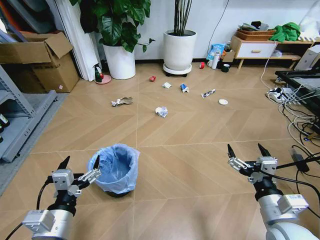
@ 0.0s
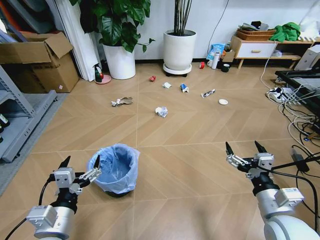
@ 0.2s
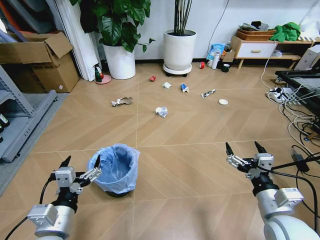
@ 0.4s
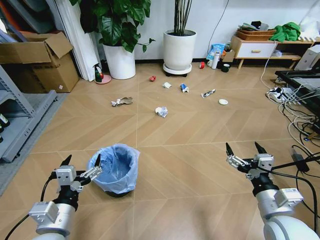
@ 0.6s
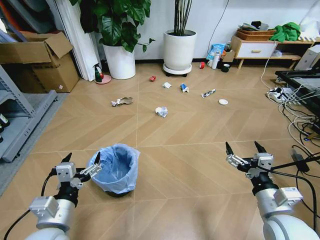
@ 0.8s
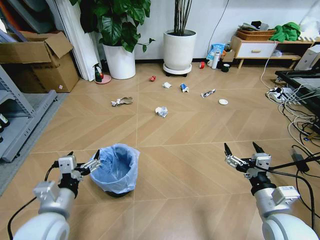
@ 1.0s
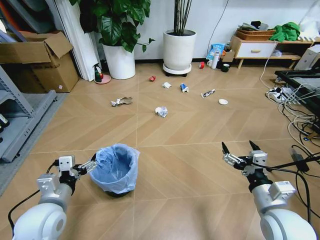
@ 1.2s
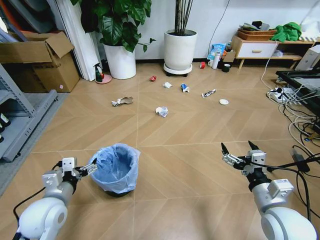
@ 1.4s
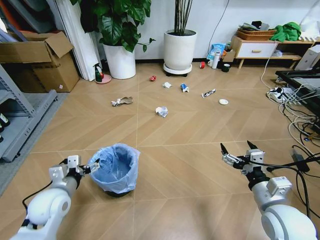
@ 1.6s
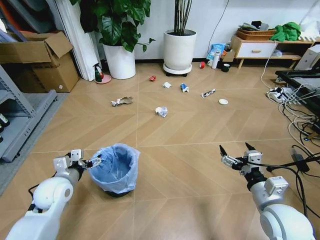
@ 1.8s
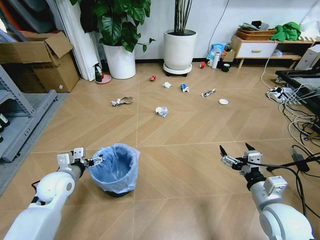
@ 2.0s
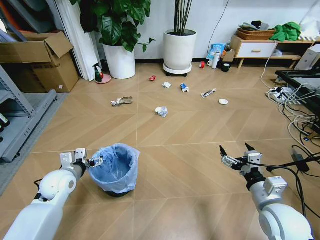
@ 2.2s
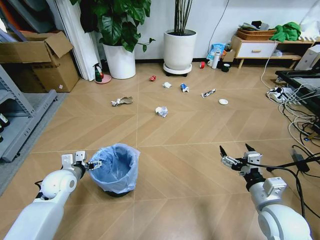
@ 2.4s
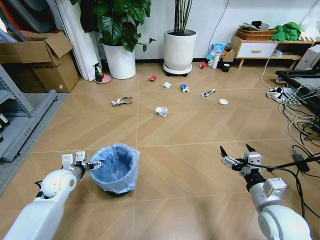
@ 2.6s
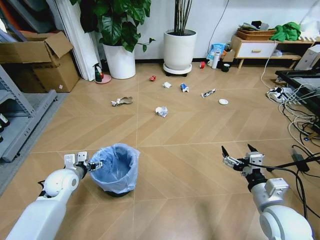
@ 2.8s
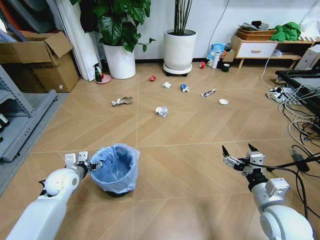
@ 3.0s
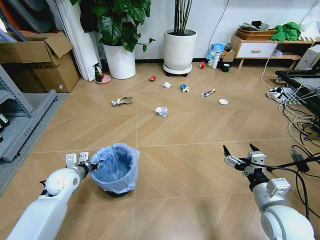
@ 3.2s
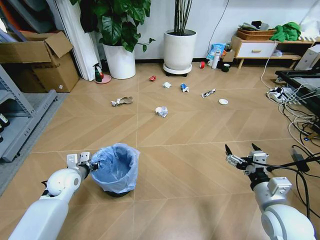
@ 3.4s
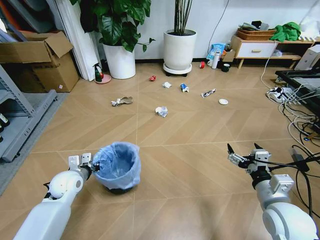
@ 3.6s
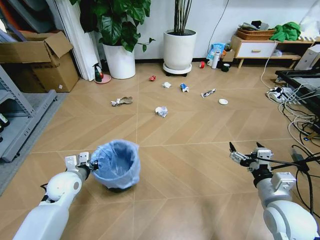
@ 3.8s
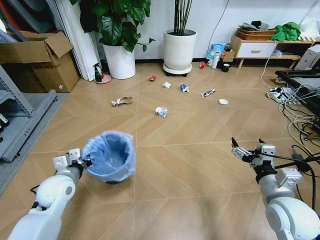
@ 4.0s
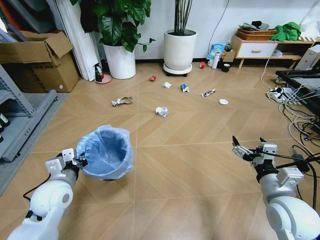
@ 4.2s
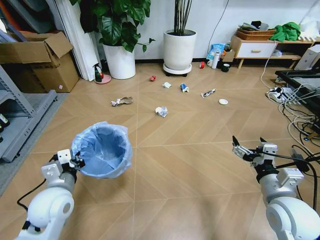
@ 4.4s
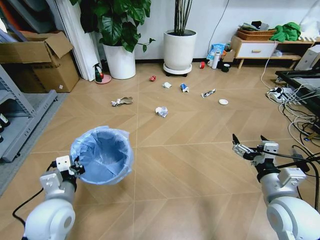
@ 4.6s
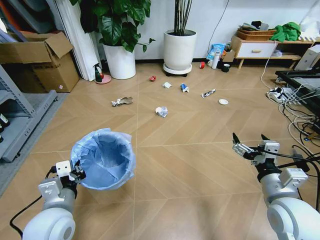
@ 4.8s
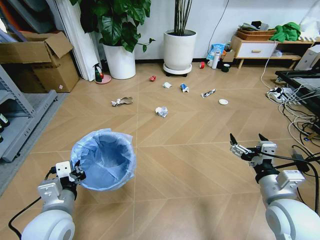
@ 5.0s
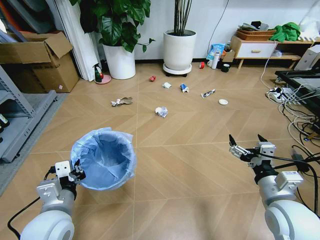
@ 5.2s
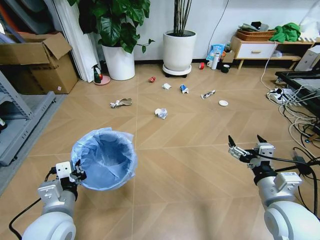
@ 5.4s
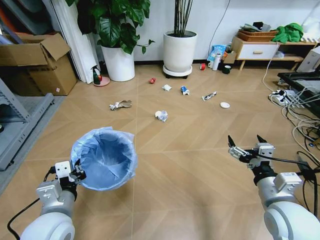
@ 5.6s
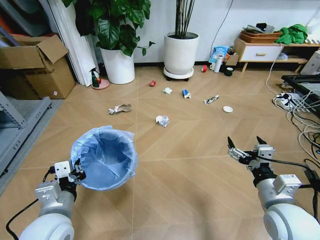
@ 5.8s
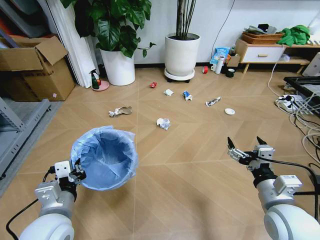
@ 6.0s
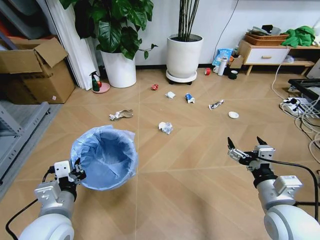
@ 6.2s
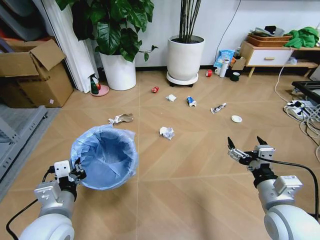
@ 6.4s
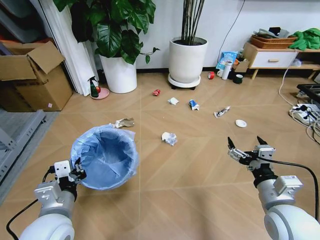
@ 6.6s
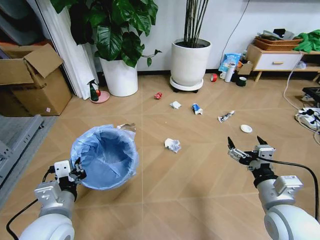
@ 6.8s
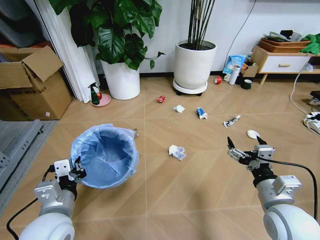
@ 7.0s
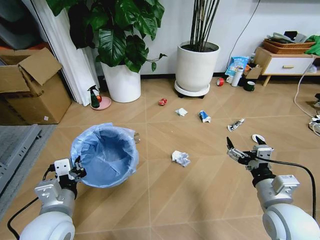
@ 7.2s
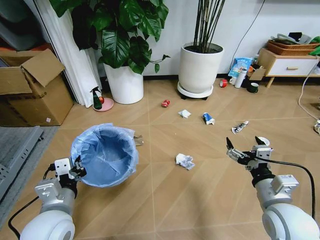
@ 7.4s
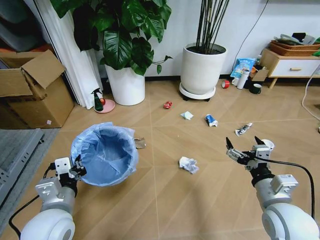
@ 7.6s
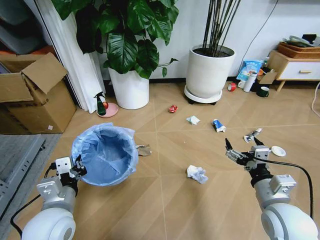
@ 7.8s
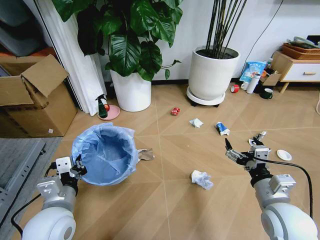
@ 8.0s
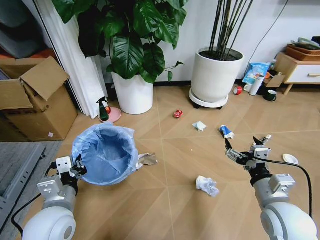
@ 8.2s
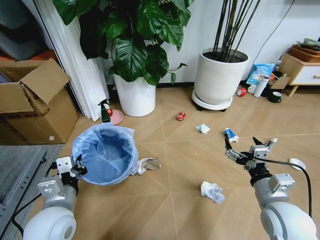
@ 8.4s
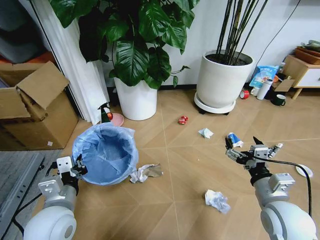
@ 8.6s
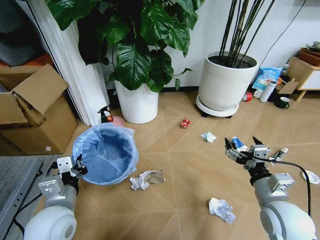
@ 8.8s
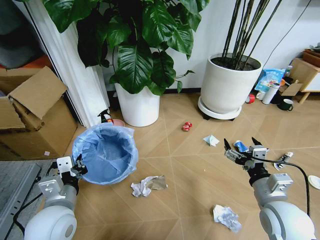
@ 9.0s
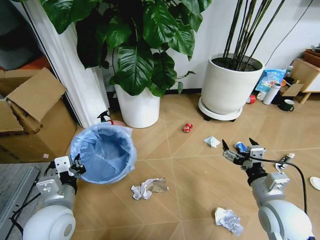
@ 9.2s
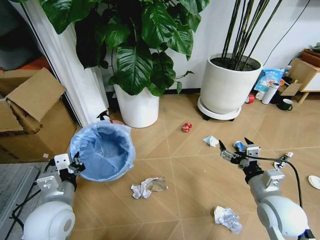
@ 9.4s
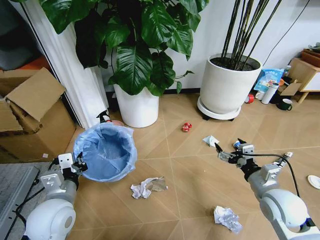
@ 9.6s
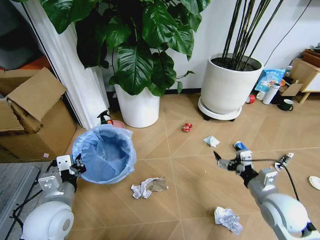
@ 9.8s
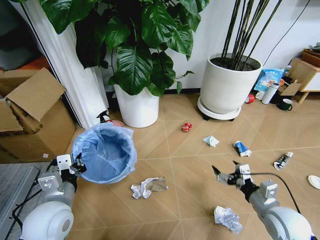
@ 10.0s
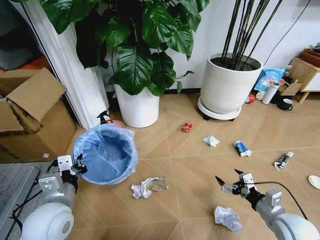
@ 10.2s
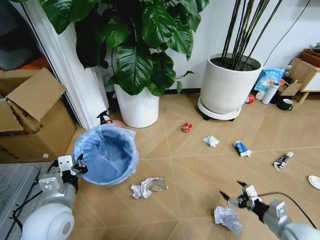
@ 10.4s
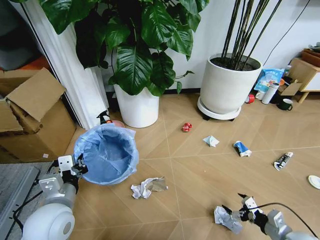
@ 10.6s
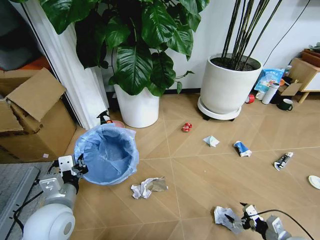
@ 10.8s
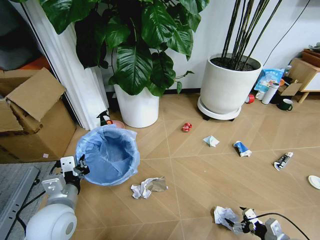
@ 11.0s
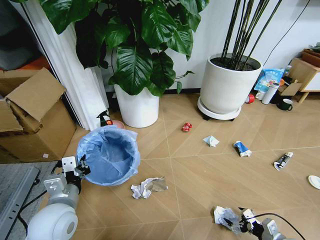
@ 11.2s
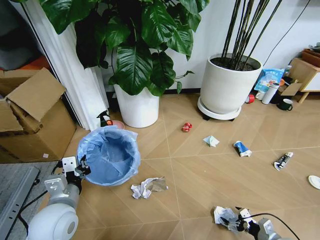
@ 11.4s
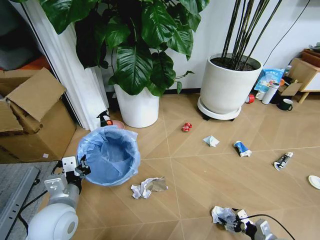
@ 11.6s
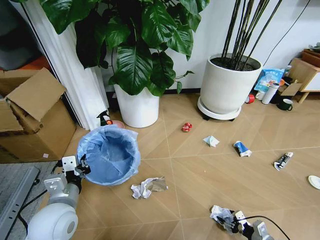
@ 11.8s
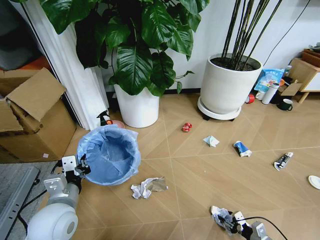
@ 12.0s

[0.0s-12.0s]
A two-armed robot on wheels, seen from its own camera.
Task of the whole recording: Pick up the trash bin and place the garbage on the floor into it.
1.6s to 3.0s: The left gripper heads forward, covering approximately 10 cm.
3.0s to 4.4s: The left gripper moves backward, upward and to the right, about 15 cm, and closes.
4.4s to 6.0s: The left gripper goes some 10 cm backward.
9.0s to 10.4s: The right gripper heads downward and to the right, covering roughly 15 cm.
10.4s to 12.0s: The right gripper travels downward by roughly 15 cm, and closes.

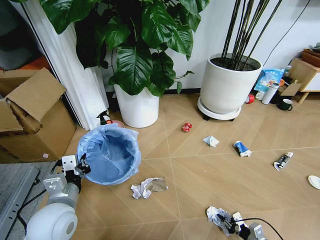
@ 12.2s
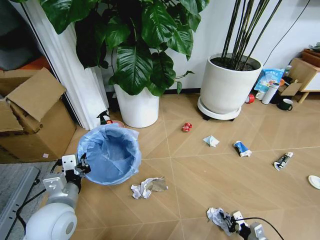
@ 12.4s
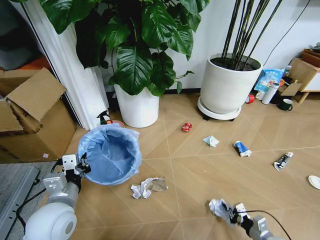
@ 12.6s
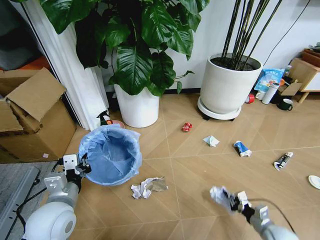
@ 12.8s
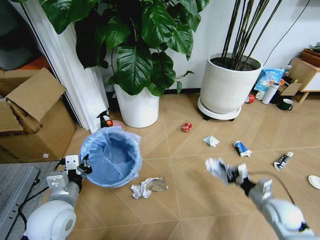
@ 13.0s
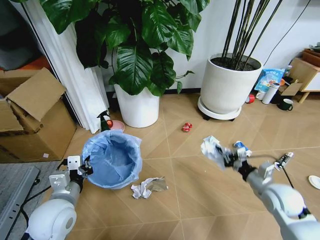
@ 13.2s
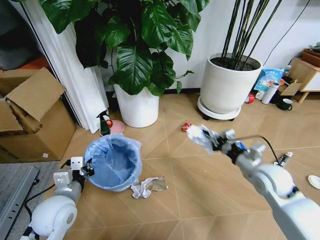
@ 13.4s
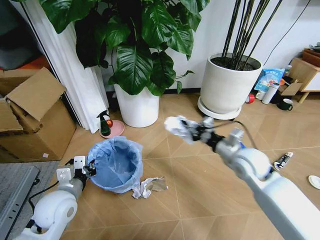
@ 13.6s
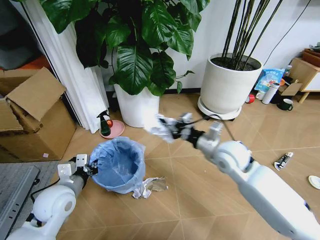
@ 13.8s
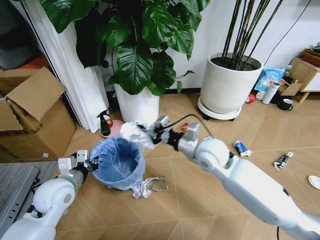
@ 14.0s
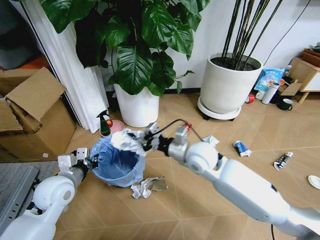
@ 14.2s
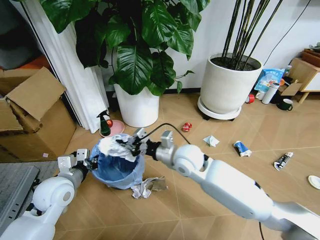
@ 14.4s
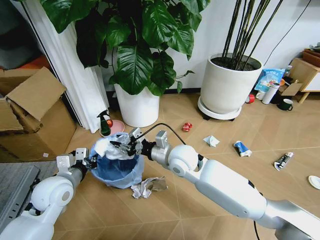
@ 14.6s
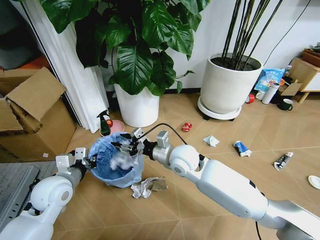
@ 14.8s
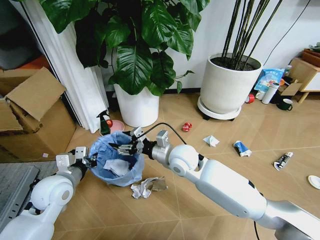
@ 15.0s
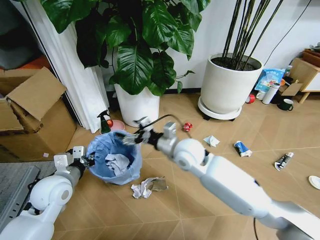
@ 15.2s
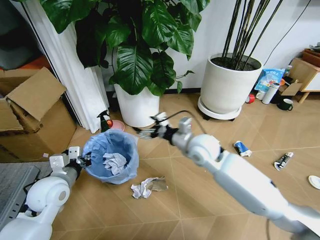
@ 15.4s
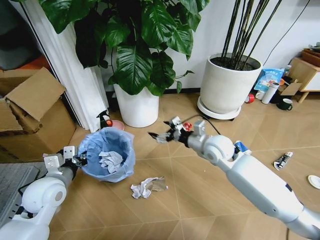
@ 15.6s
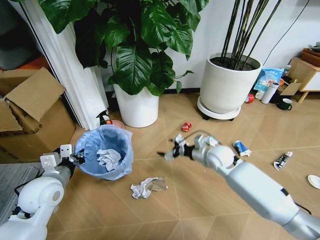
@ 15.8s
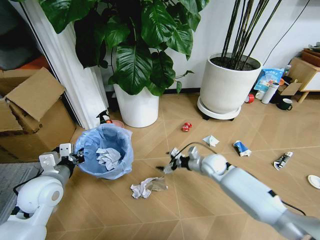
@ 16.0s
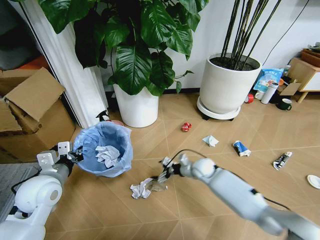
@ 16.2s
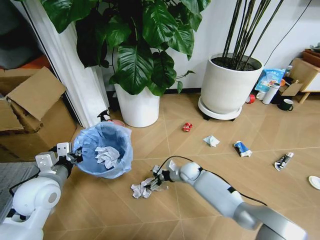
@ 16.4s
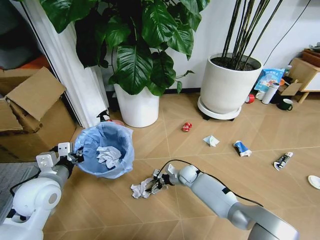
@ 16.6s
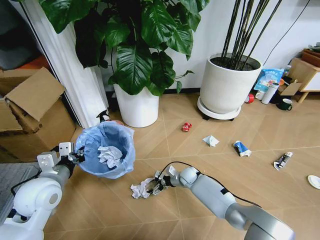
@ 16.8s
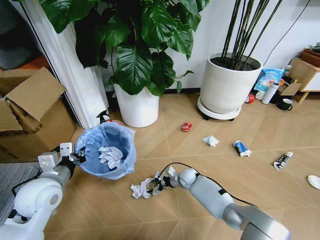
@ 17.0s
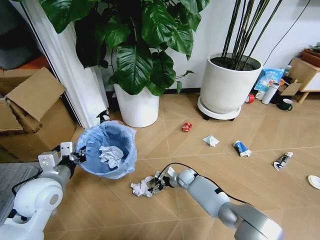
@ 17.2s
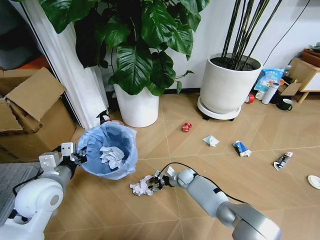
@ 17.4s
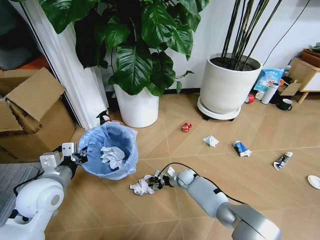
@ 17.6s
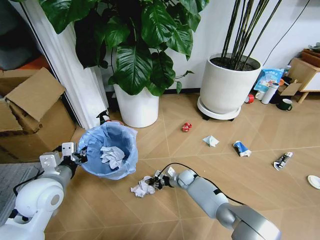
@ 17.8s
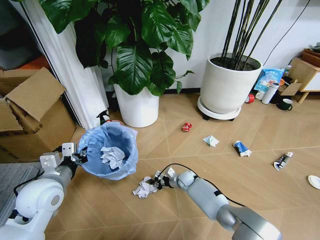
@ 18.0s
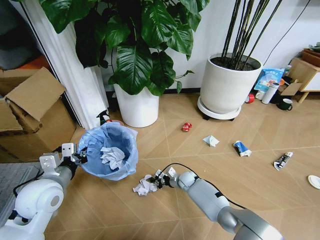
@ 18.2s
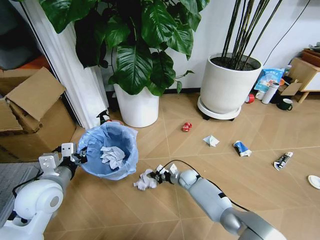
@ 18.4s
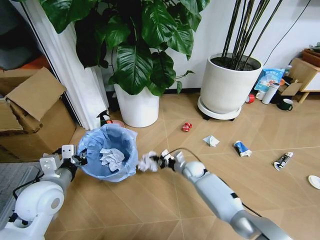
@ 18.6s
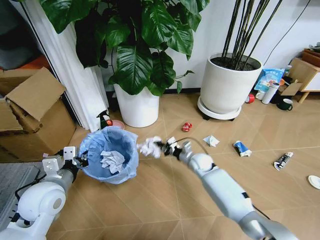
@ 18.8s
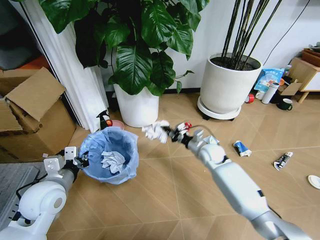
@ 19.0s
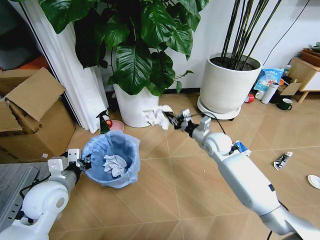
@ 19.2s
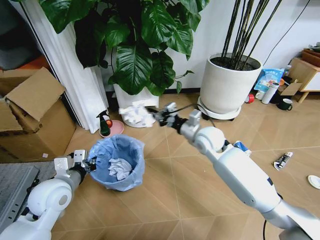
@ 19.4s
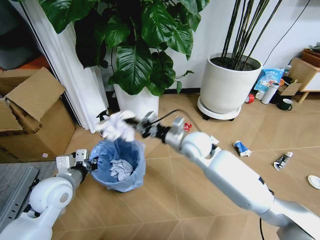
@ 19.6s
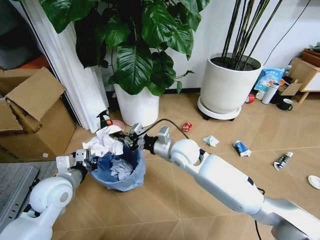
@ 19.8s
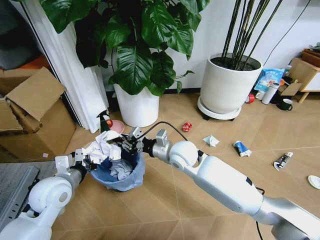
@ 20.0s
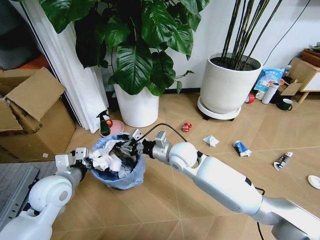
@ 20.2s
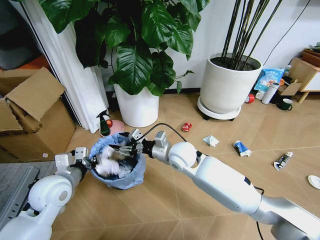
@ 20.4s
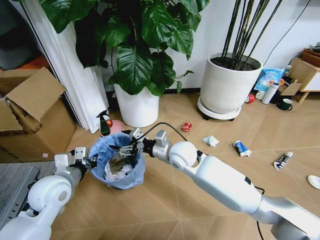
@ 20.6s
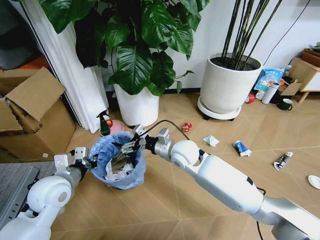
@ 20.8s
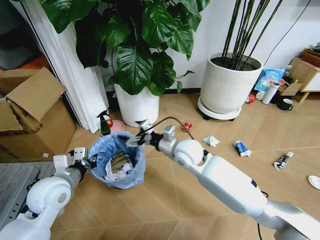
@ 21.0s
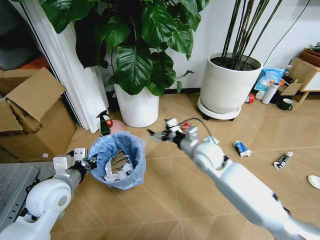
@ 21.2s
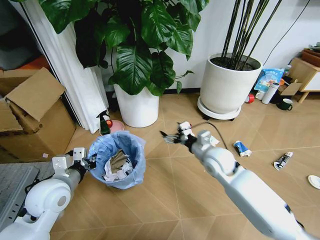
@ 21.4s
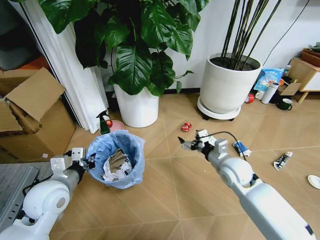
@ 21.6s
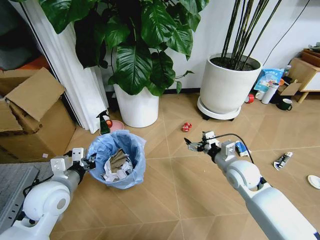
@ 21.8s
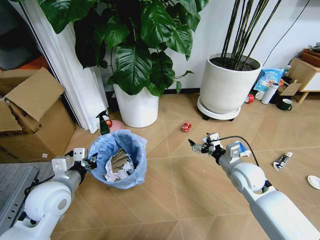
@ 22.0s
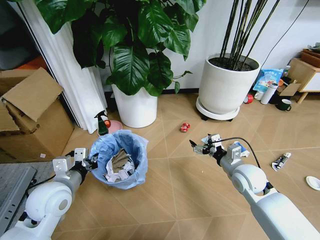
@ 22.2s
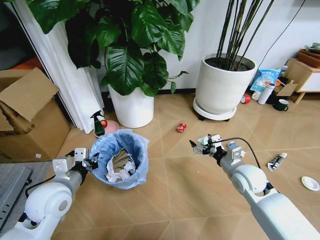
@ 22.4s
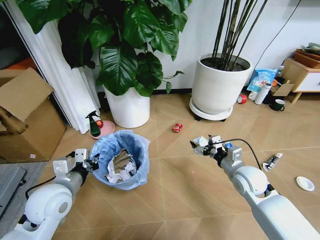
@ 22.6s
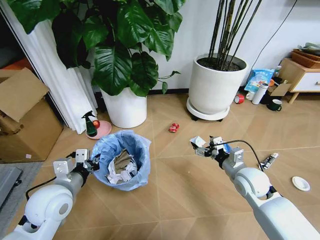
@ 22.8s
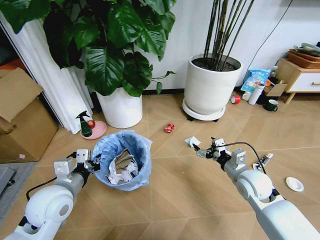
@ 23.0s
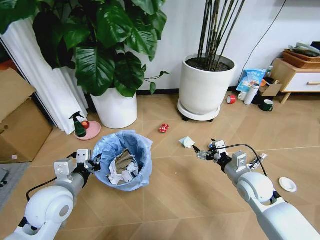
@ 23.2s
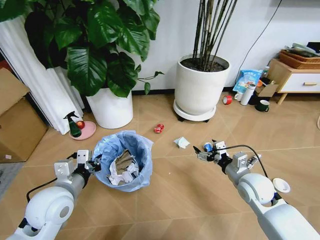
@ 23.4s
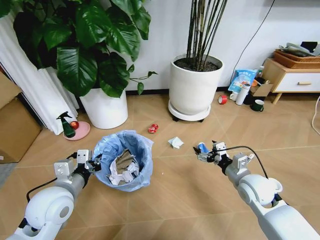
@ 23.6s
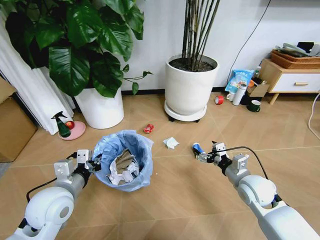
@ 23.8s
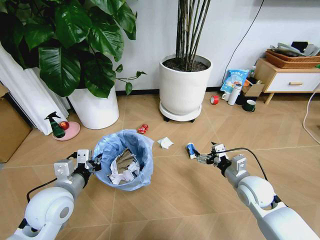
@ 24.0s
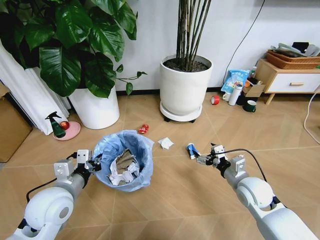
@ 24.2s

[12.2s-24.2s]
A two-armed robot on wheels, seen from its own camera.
Task of the whole recording: Pick up the trash bin and place the garbage on the floor into it.
12.2s to 13.8s: The left gripper goes about 5 cm forward. The right gripper travels upward, forward and to the left by some 50 cm.
13.8s to 15.2s: The right gripper travels to the left by roughly 15 cm, and opens its fingers.
15.2s to 16.6s: The right gripper is displaced downward by roughly 30 cm.
16.6s to 18.2s: The right gripper closes its fingers.
18.2s to 19.8s: The right gripper moves upward, about 30 cm.
19.8s to 21.2s: The right gripper shifts approximately 5 cm to the right, and opens its fingers.
21.2s to 22.6s: The right gripper goes roughly 15 cm to the right and backward.
